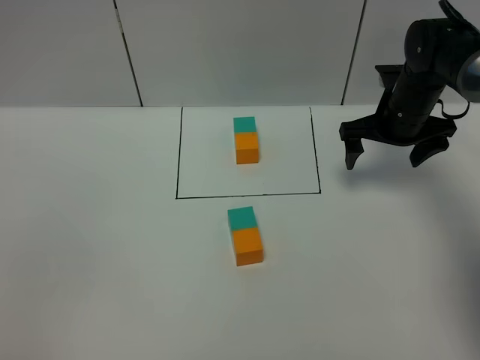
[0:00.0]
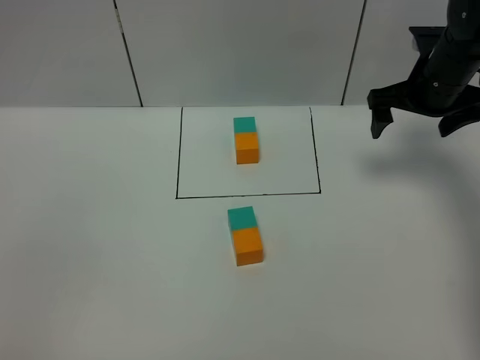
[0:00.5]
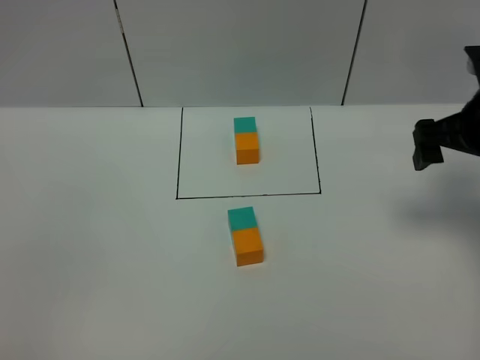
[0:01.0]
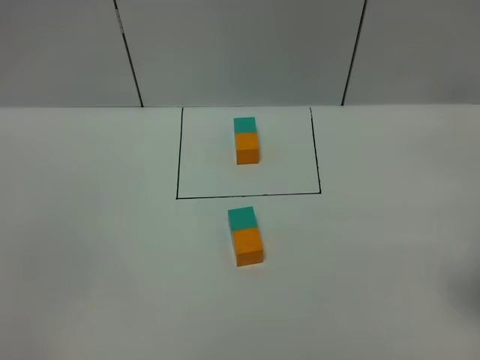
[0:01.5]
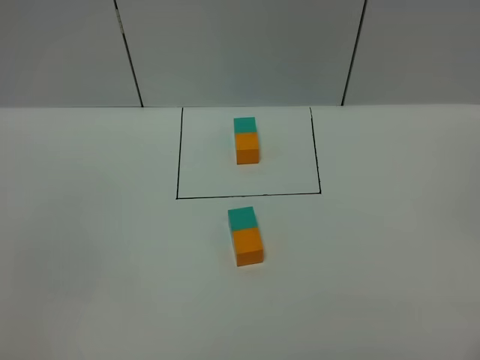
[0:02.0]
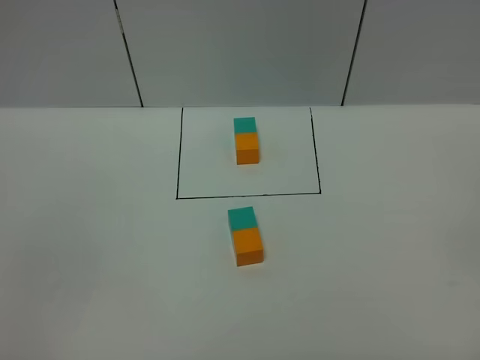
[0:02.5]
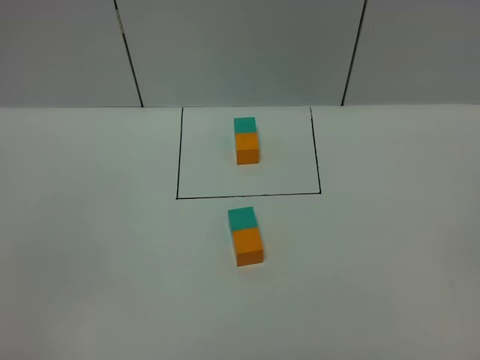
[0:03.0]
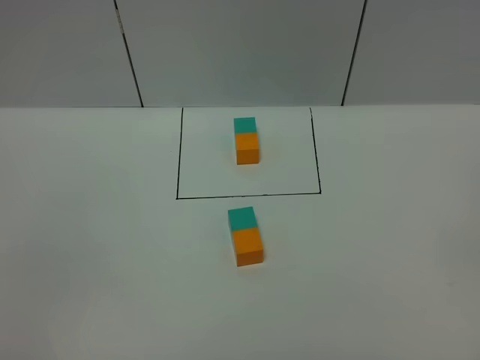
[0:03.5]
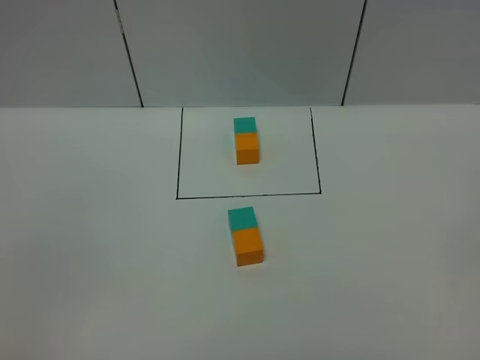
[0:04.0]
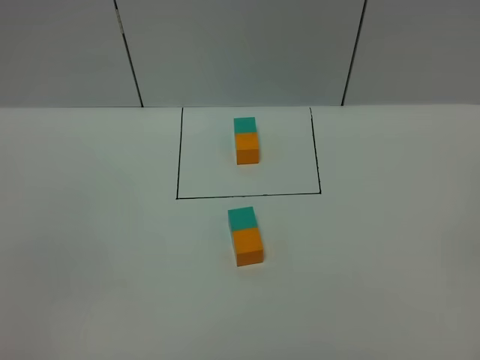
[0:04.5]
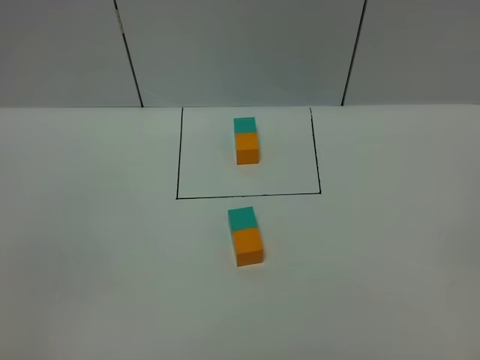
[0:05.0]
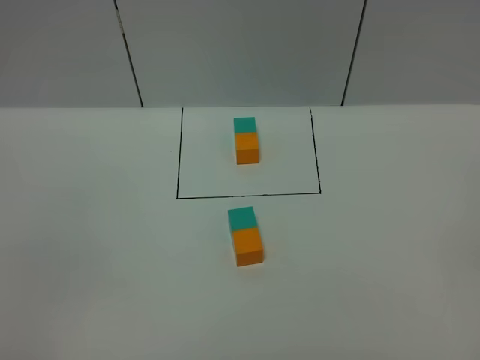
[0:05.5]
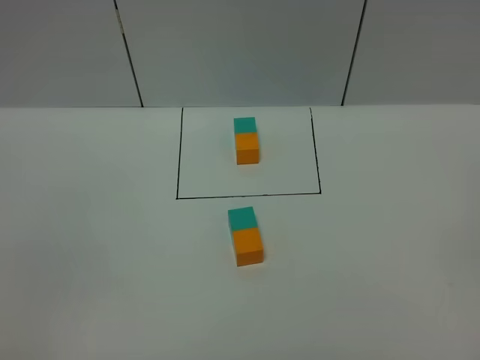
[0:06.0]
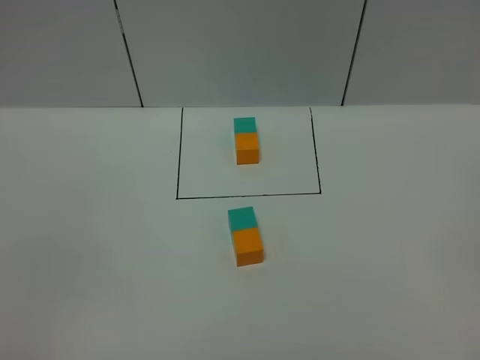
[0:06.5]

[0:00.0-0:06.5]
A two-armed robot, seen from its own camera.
Task of the whole recording: According to the building block template in front, assemble the scattered blocks together.
0:00.0 to 0:02.0: The right gripper heads backward, covering roughly 40 cm.
0:04.5 to 0:06.5: Both grippers stay put.

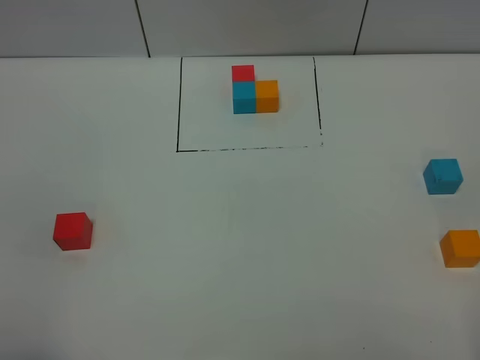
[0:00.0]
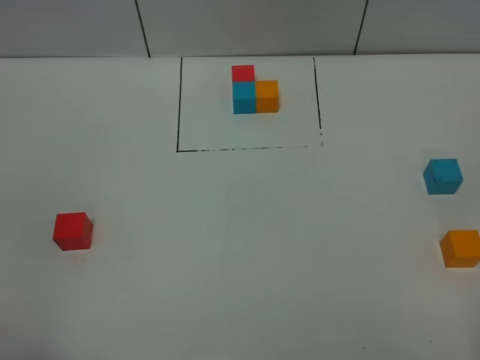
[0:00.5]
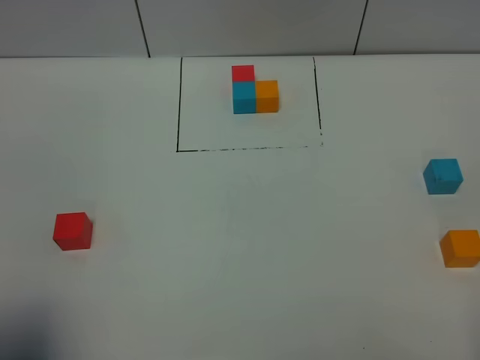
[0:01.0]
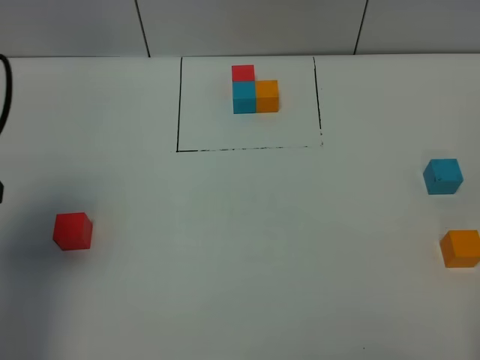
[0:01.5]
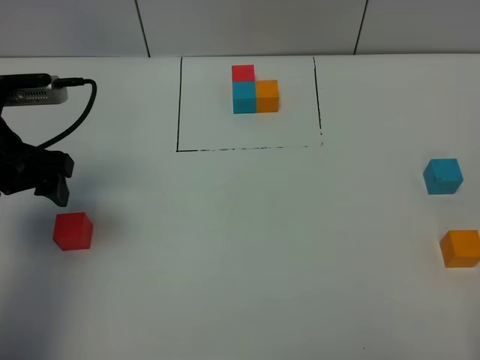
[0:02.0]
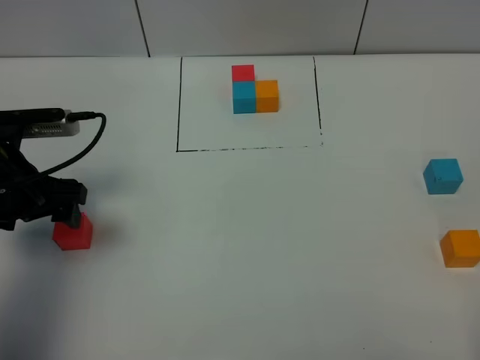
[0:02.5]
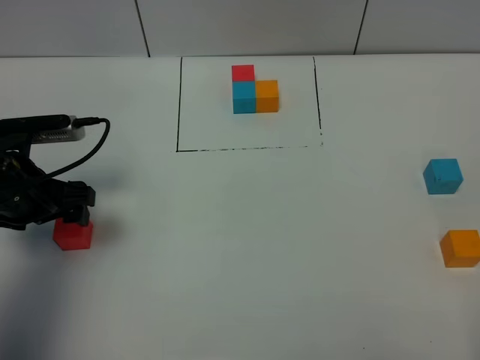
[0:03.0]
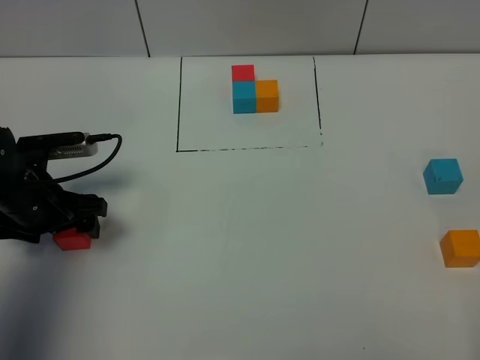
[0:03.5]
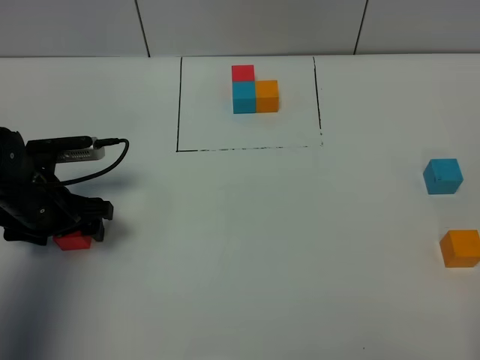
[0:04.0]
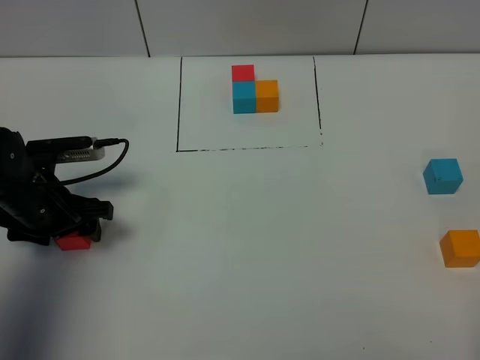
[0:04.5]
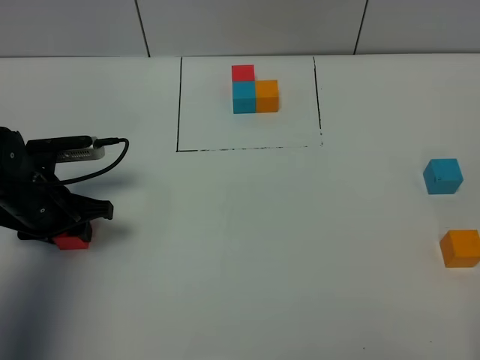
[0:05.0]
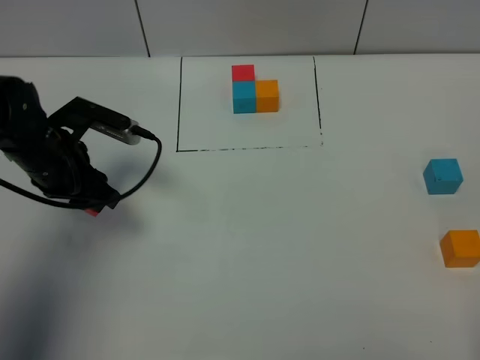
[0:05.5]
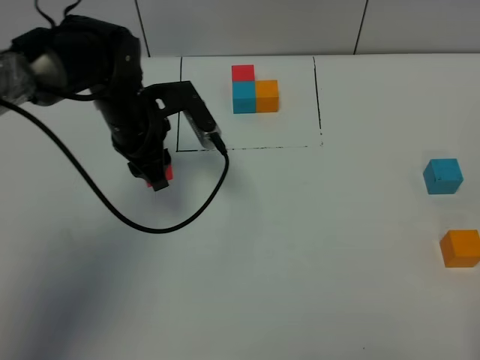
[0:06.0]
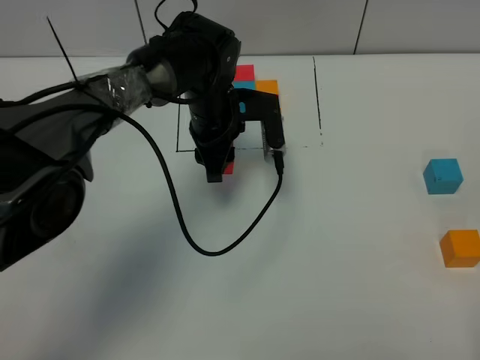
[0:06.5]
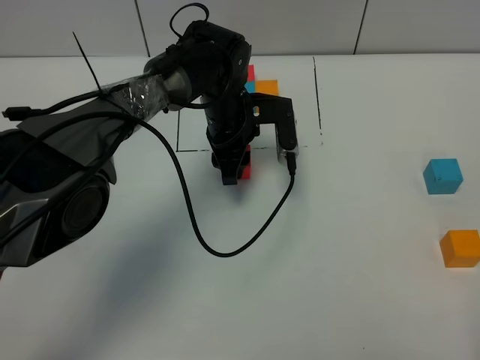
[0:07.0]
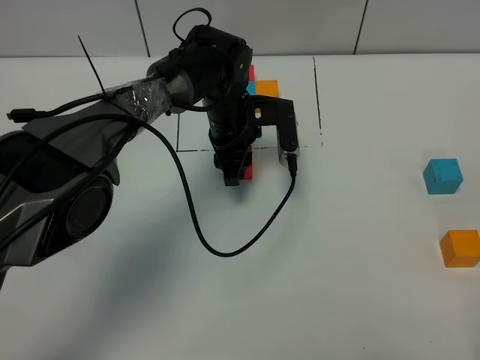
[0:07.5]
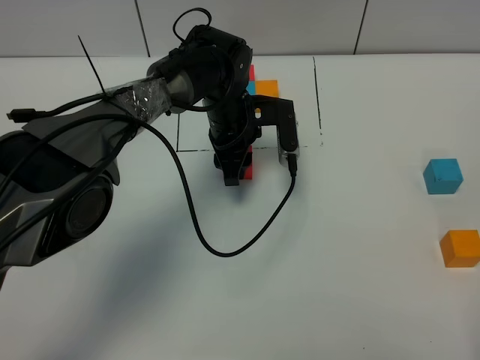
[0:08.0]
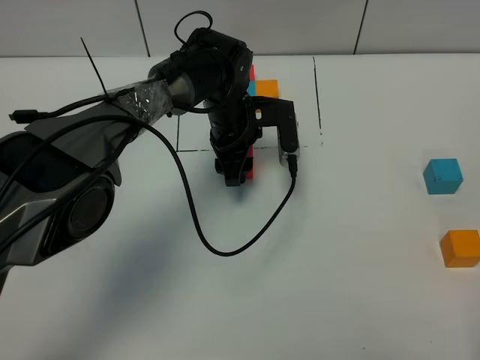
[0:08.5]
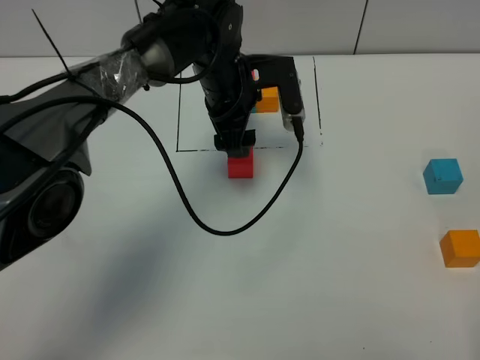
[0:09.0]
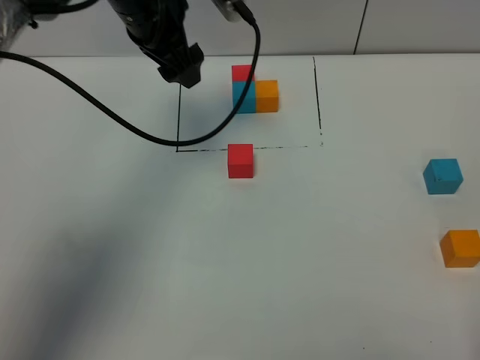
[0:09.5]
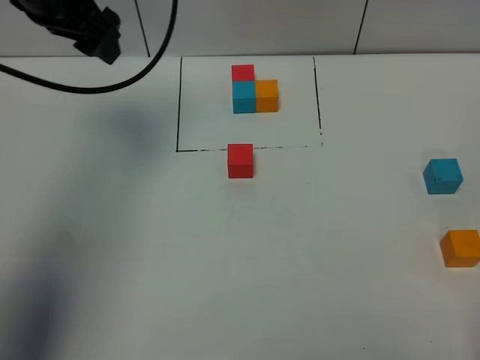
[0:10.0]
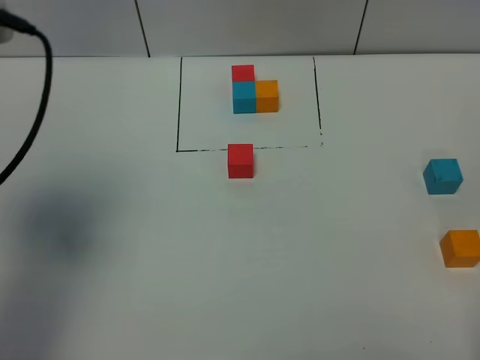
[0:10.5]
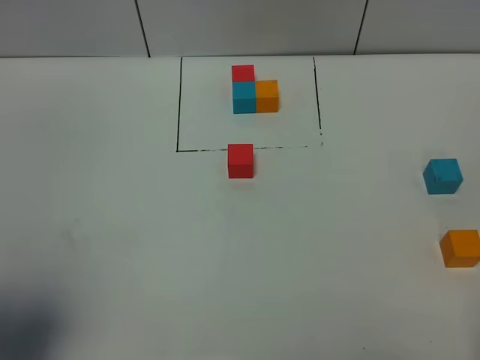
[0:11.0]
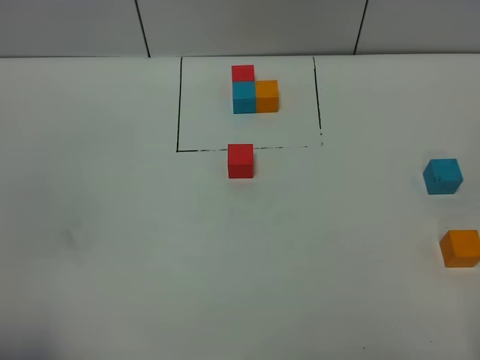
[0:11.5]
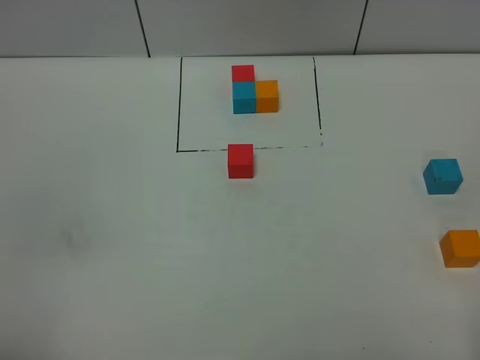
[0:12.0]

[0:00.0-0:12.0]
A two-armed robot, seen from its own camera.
Task of the whole recording: According to the building block template in front, assemble the scattered blocks together.
Step, 0:00.0 to 0:08.5: Put the red build block in the center of the table.
0:00.0 to 0:02.0: The left gripper travels forward by about 30 cm.
0:02.0 to 0:04.0: The left gripper heads downward, covering some 10 cm.
0:04.0 to 0:06.0: The left gripper goes some 15 cm to the right and forward, and closes.
0:06.0 to 0:08.0: The left gripper travels to the right and downward by approximately 10 cm.
0:08.0 to 0:10.0: The left gripper shifts about 30 cm upward and to the left, and opens its fingers.
0:10.0 to 0:12.0: The left gripper heads backward, covering roughly 40 cm.

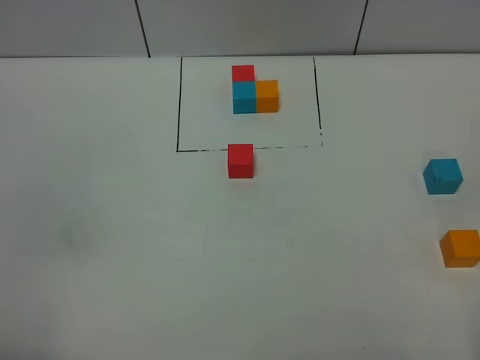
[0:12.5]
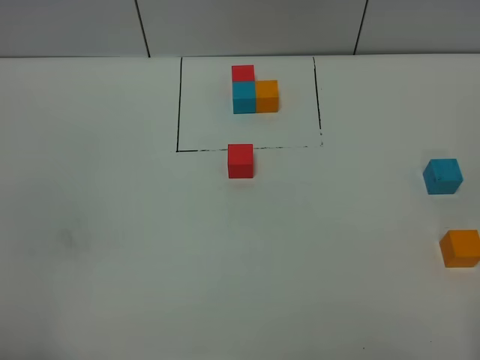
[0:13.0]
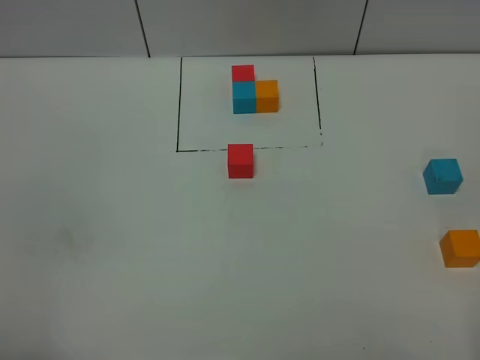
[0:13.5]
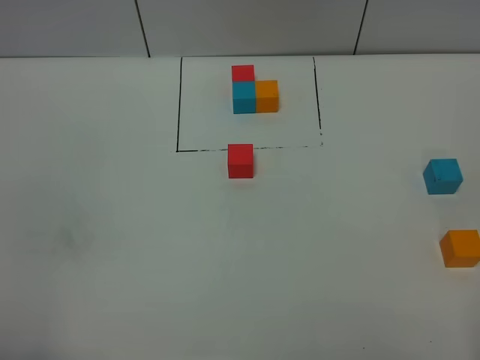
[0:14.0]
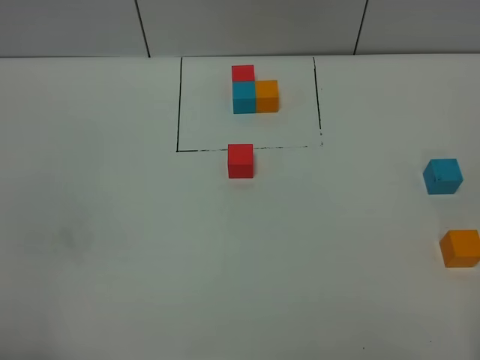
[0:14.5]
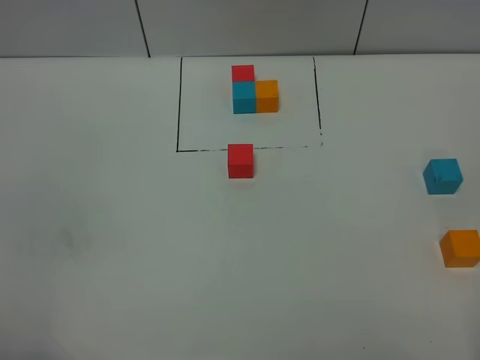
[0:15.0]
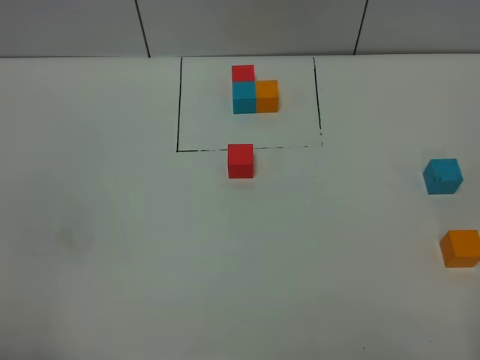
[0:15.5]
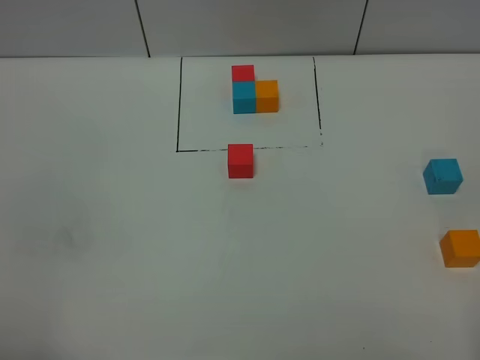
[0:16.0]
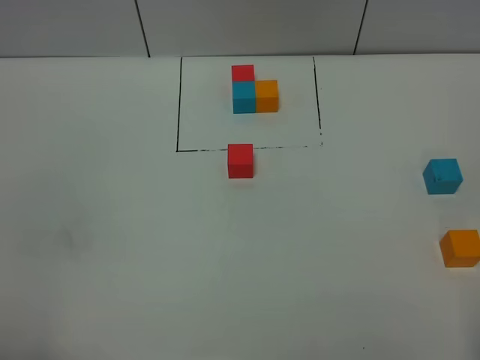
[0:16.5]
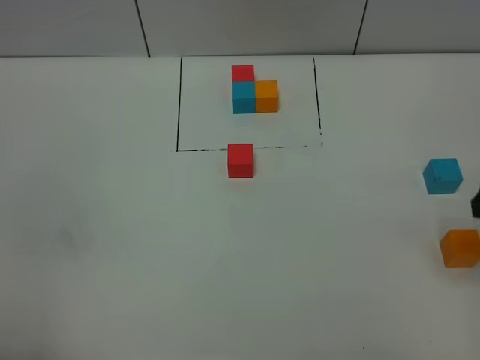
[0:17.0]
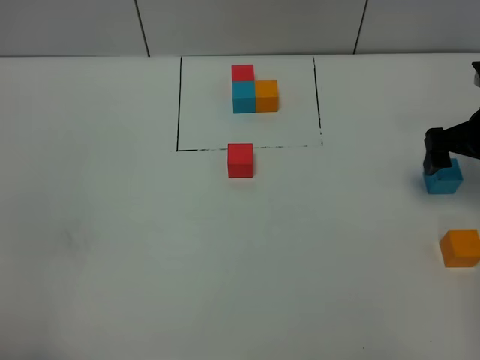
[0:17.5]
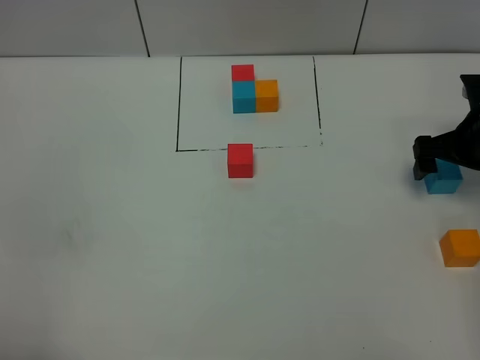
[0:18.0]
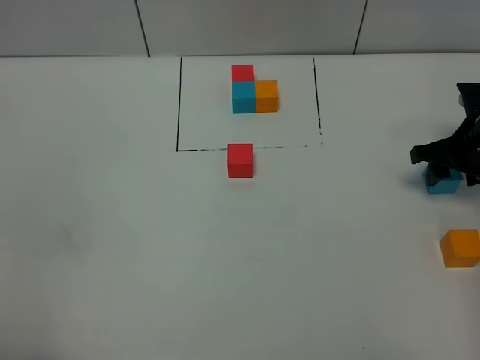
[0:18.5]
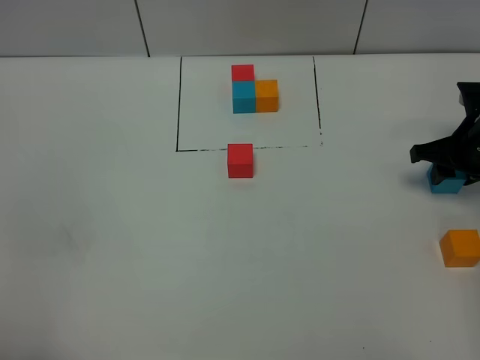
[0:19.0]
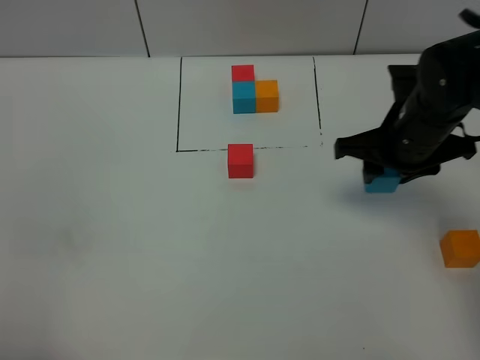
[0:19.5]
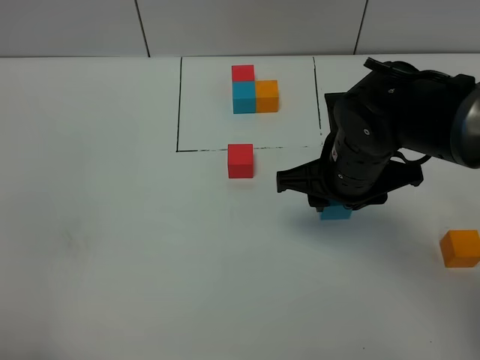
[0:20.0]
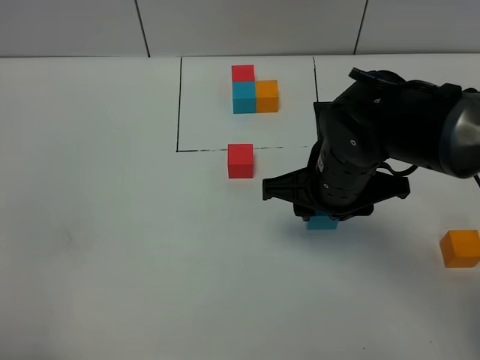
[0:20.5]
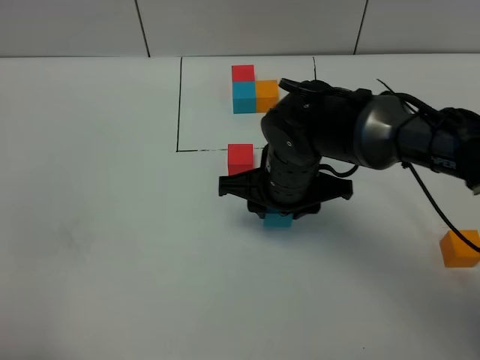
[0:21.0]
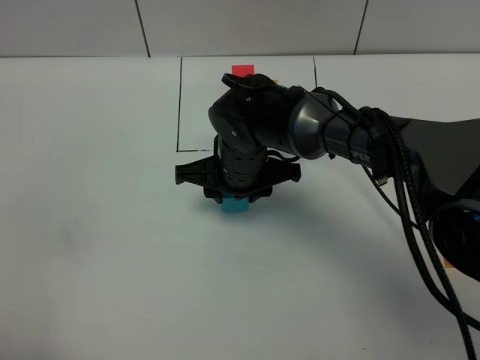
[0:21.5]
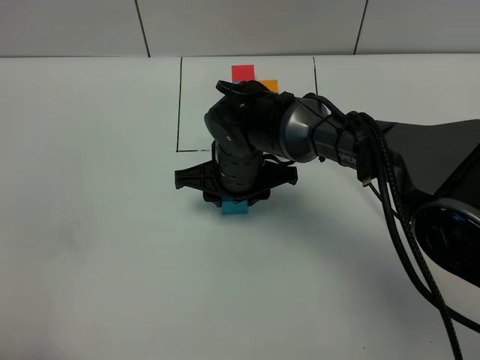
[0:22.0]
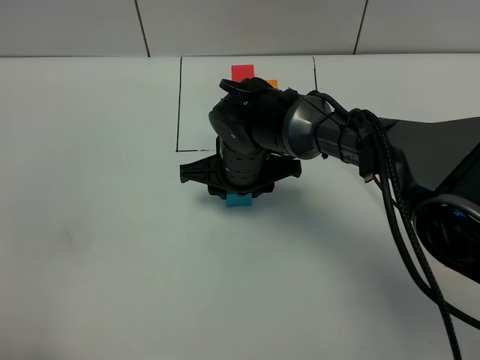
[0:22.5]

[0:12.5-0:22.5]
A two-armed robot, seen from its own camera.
Task of the whole recording: According to the building block template in front, assemble the scattered blocks together.
0:16.5 to 0:18.5: The right gripper travels forward and downward by about 35 cm, and closes.
0:18.5 to 0:20.5: The right gripper shifts about 25 cm to the left and backward.
0:20.5 to 0:22.5: The right gripper heads to the left, forward and downward, covering about 15 cm.
